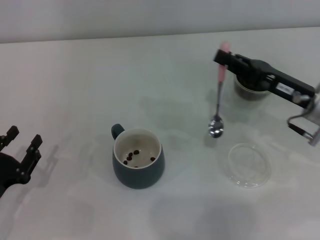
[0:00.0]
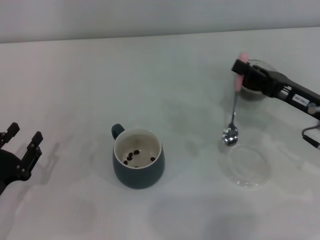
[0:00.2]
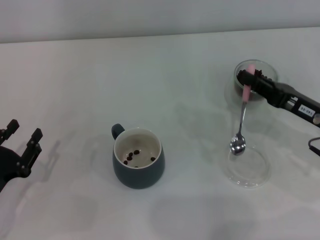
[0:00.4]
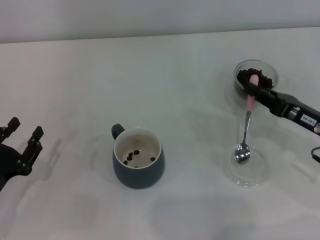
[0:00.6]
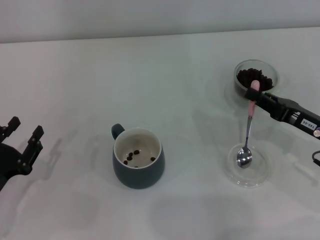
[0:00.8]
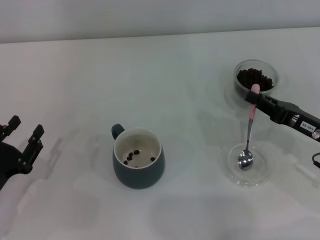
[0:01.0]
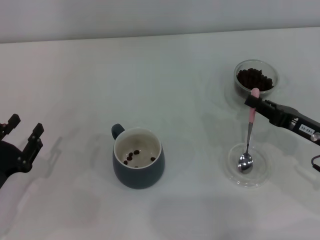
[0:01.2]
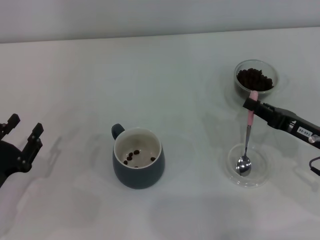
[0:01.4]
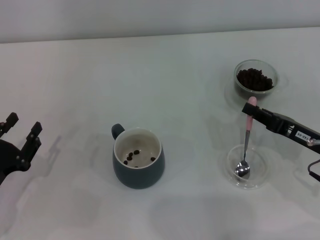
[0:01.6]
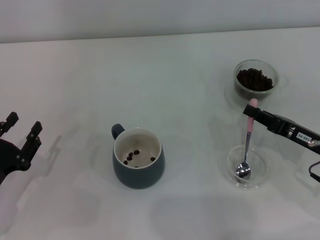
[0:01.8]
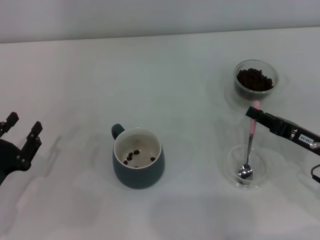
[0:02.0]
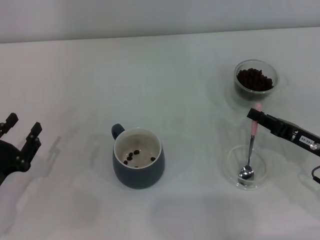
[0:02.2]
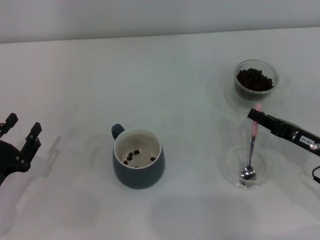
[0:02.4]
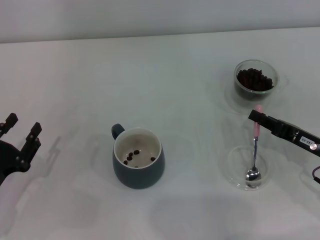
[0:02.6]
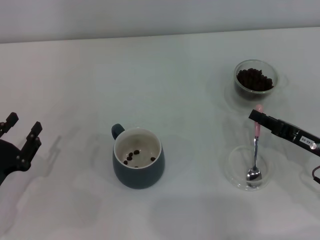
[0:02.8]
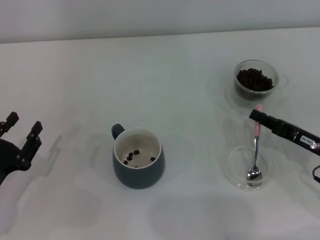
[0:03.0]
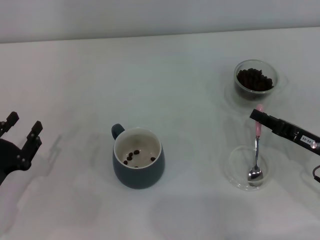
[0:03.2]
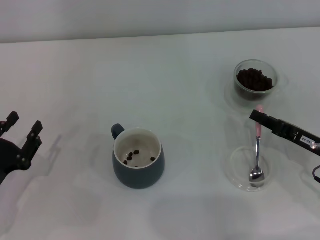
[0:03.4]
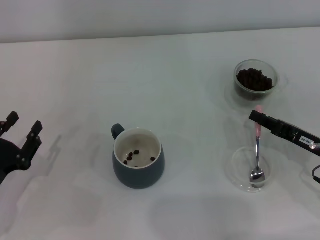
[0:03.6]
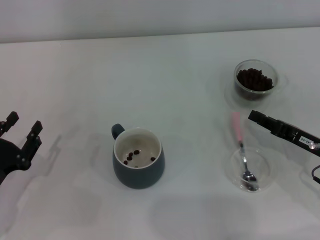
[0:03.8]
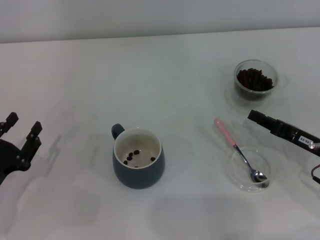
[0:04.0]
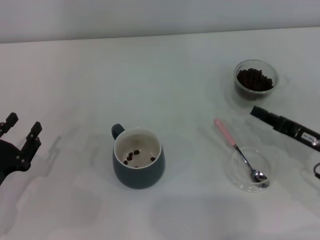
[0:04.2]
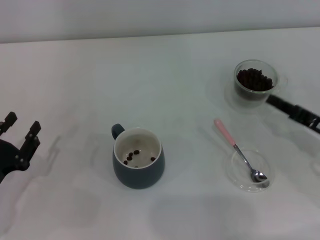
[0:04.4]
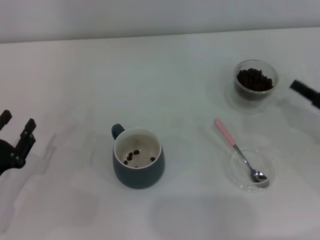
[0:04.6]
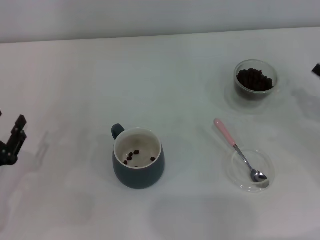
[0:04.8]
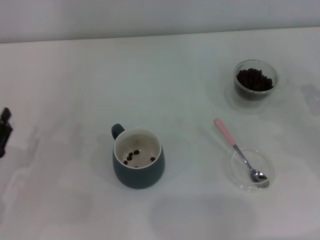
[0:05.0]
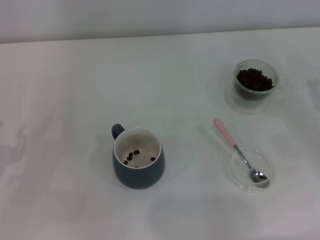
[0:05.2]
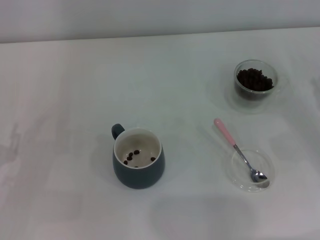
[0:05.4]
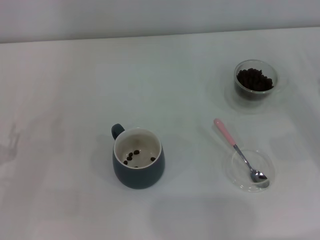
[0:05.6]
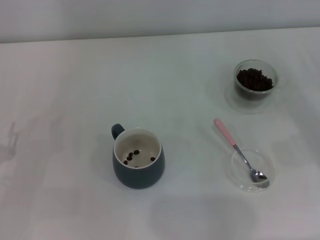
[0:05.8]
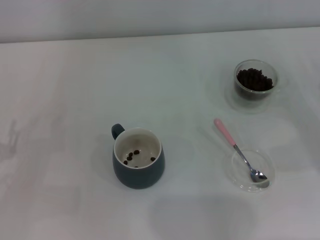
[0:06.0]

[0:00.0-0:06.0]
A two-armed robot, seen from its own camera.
Task of the whole recording: Use a pink spoon to take out the coffee beans from the glass and pour them into the gray cup.
Step, 0:00.0 to 0:04.0: Place the spoon back in its original place with the right gripper.
0:00.0 to 0:01.6: The right gripper travels downward and backward by roughly 10 cm.
0:01.6 to 0:04.4: The grippers move only a little.
0:04.4 to 0:06.0: The right gripper is displaced to the right by some 5 cm.

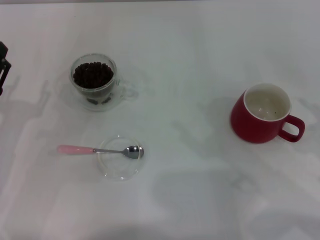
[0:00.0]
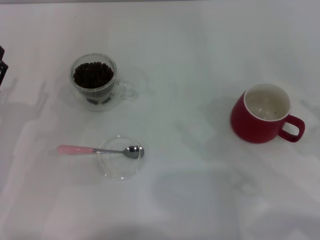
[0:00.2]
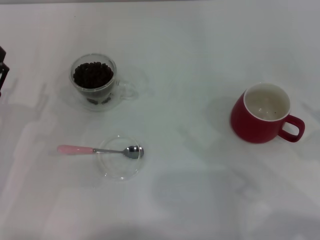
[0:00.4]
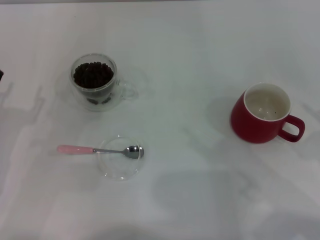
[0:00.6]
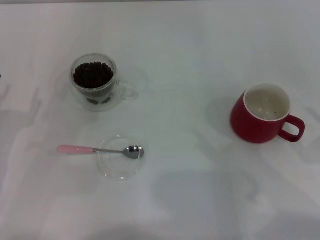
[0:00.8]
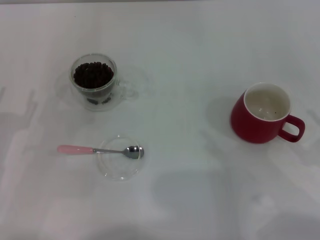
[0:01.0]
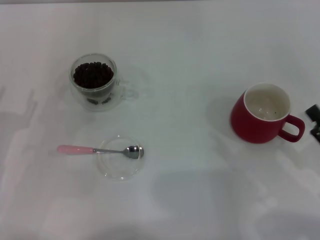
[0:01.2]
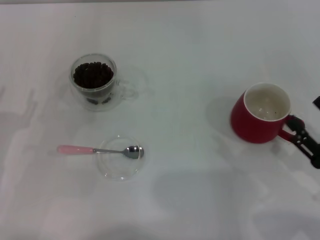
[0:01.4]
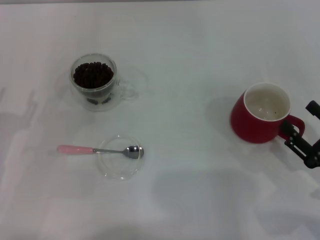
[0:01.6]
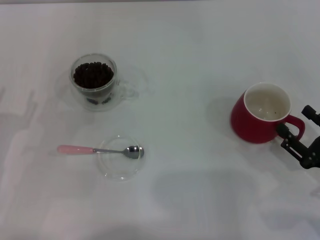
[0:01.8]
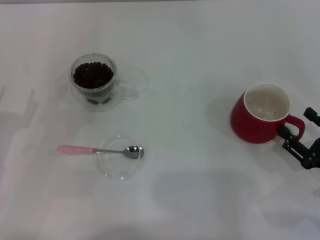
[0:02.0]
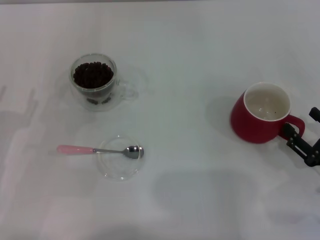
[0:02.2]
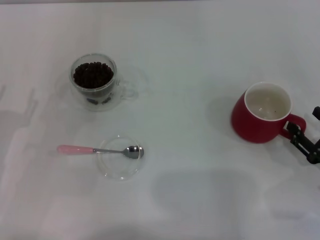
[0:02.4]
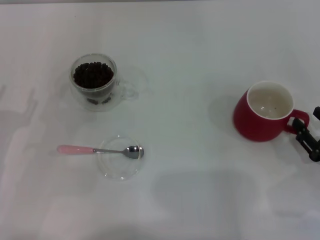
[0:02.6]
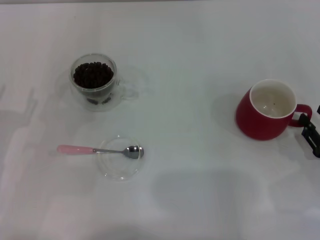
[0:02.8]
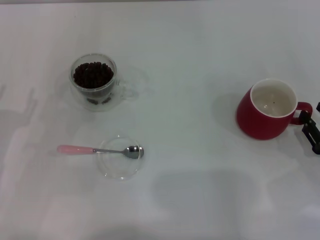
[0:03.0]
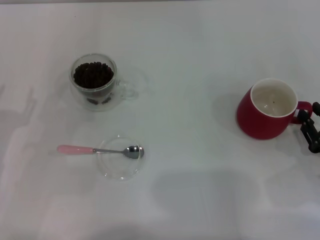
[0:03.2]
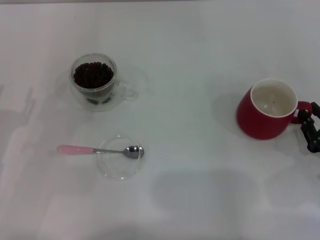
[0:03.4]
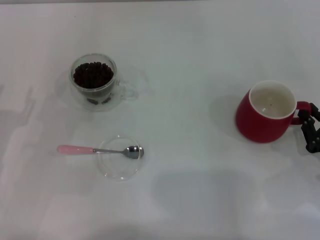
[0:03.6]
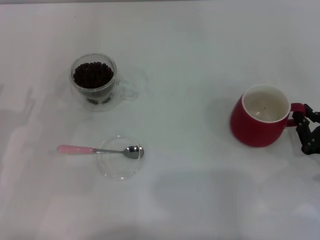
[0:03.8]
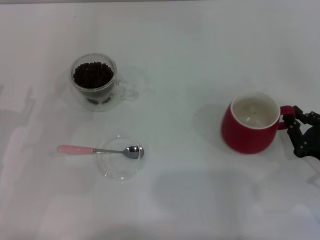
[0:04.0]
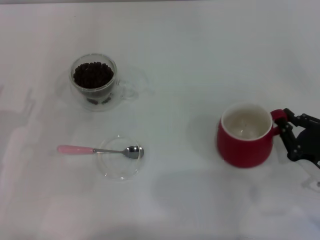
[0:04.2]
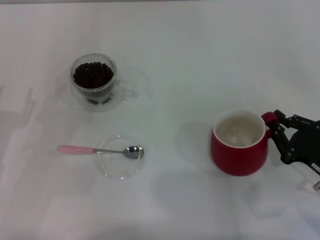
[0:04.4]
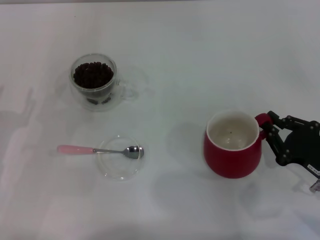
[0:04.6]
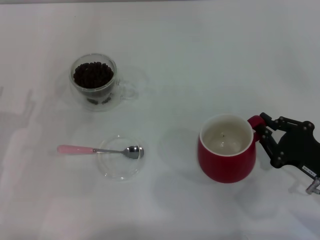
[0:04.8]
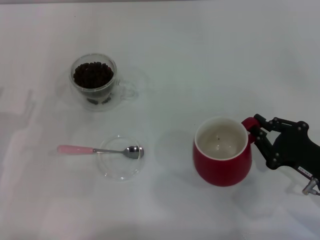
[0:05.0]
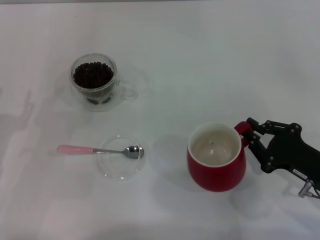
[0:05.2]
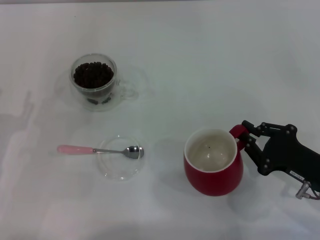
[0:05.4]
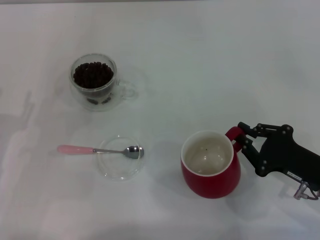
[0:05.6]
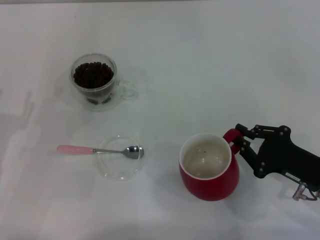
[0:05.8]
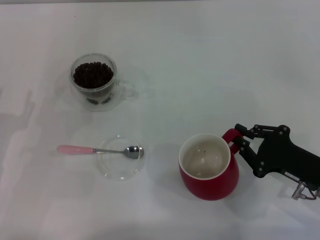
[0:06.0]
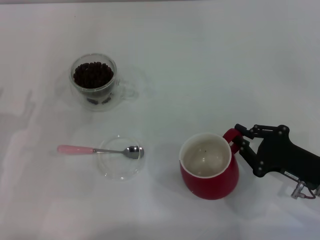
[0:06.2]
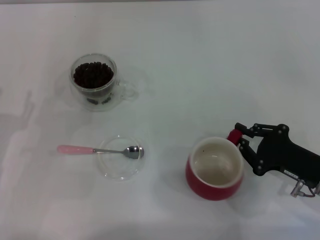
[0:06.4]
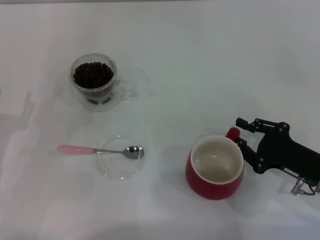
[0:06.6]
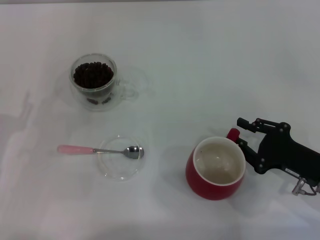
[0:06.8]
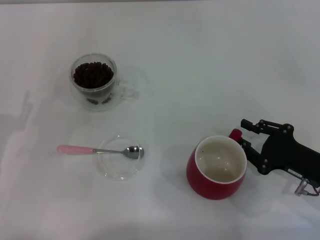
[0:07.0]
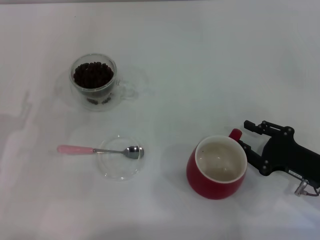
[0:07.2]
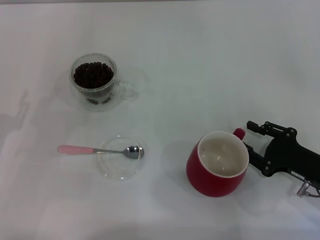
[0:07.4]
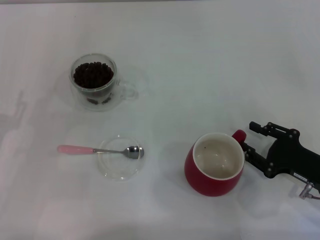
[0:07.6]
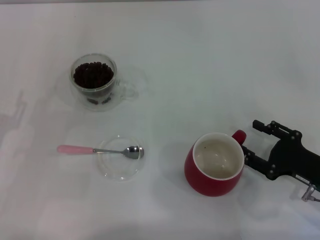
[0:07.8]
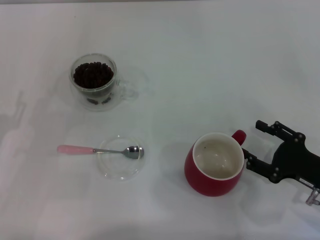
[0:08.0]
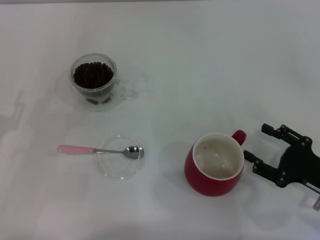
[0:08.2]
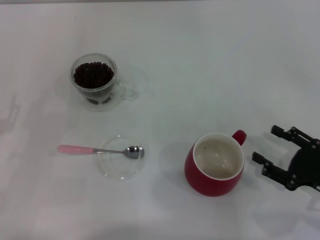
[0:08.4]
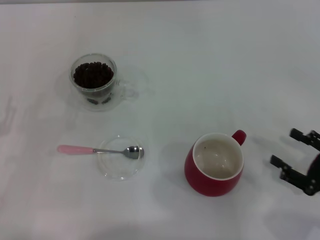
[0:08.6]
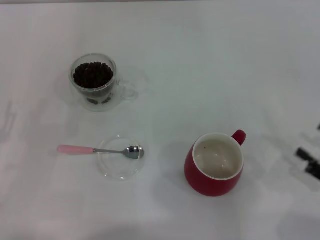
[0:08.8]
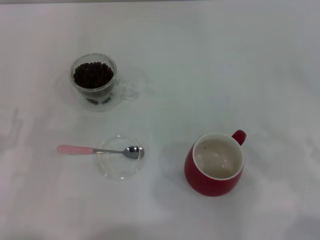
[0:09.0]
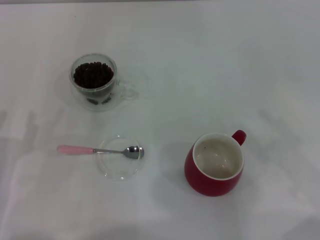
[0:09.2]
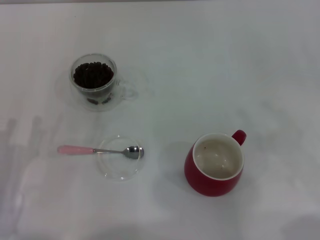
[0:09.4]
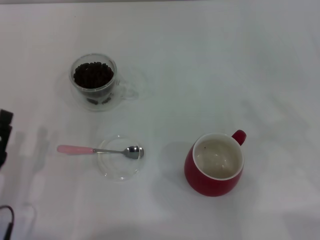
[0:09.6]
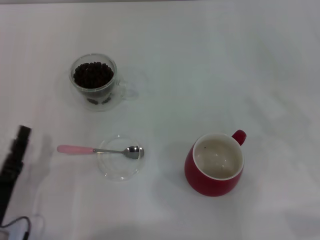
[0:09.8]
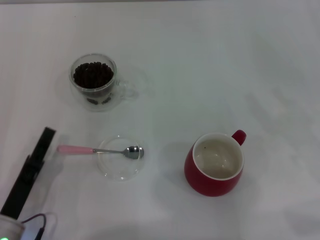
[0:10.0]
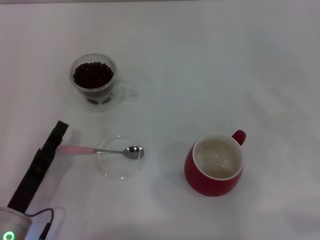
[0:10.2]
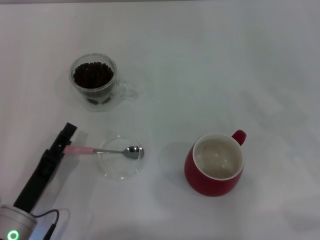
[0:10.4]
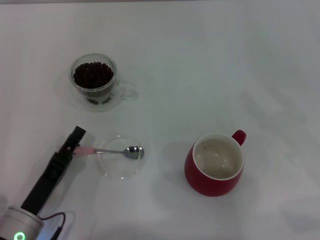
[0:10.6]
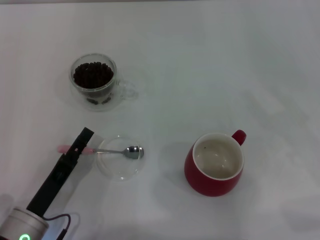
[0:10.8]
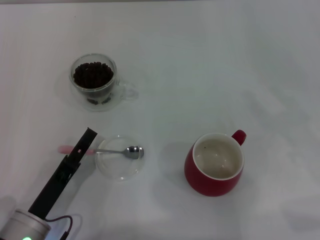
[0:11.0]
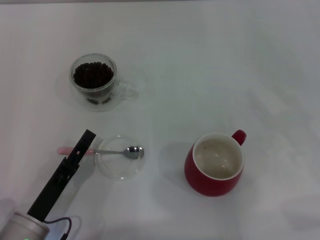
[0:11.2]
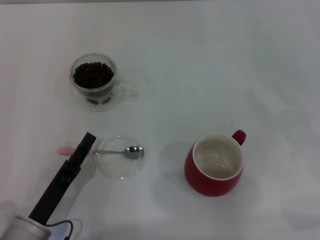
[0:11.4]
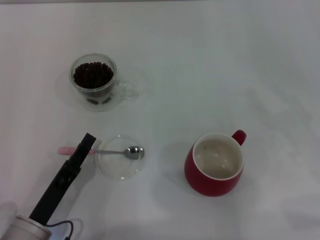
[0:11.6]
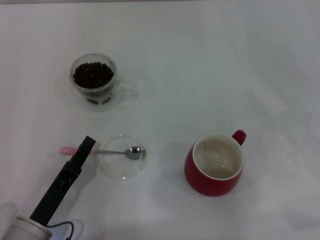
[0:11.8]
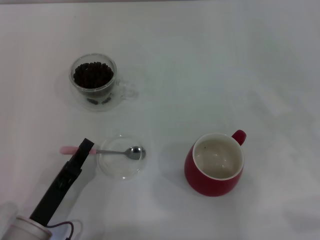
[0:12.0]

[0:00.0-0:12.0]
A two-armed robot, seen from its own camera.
Task of the whole recording: Use a pink spoon to take out the coffee beans from the glass and pour them into the red cup.
Step, 0:00.0 to 0:08.4: Move the cup to the center of view with the left gripper.
0:00.0 to 0:01.6: The right gripper moves downward, some 5 cm.
0:01.6 to 0:03.0: The right gripper closes up.
0:03.0 to 0:04.4: The right gripper closes.
0:04.4 to 0:06.0: The grippers move only a little.
0:06.0 to 0:07.6: The right gripper opens up.
0:07.6 to 0:09.0: The right gripper heads to the right, backward and upward, covering some 10 cm, and opens its fingers.
0:09.0 to 0:10.4: The left gripper heads to the right, covering roughly 10 cm.
0:10.4 to 0:12.0: The left gripper closes.

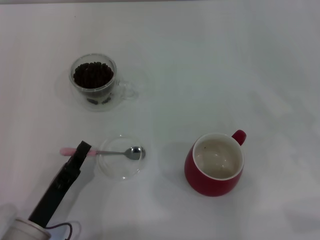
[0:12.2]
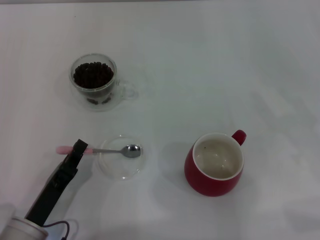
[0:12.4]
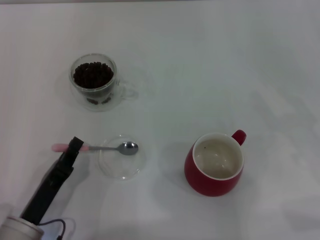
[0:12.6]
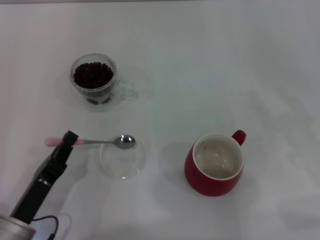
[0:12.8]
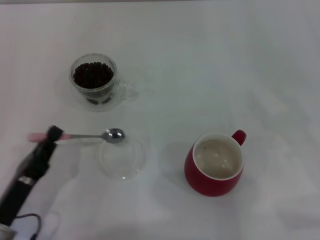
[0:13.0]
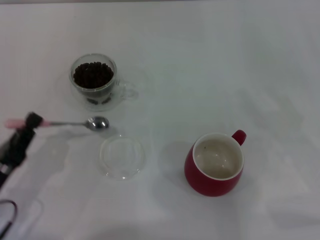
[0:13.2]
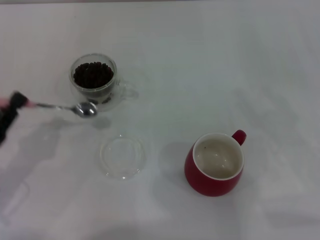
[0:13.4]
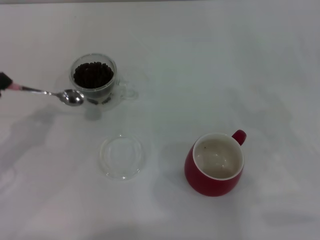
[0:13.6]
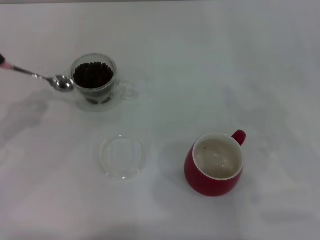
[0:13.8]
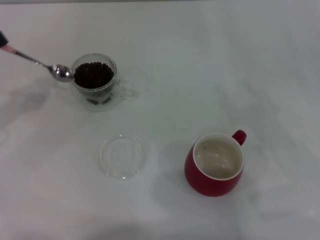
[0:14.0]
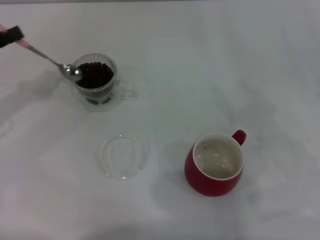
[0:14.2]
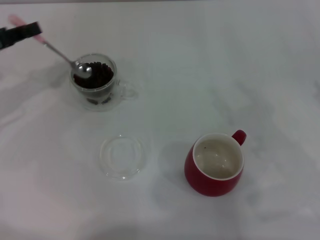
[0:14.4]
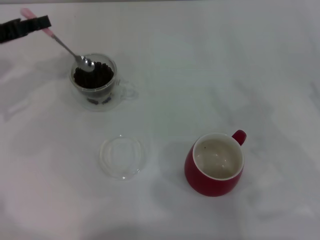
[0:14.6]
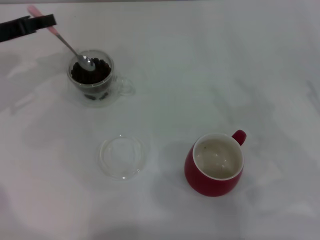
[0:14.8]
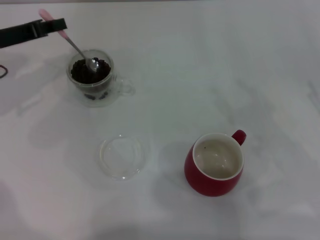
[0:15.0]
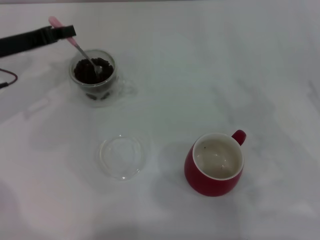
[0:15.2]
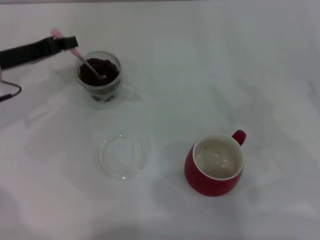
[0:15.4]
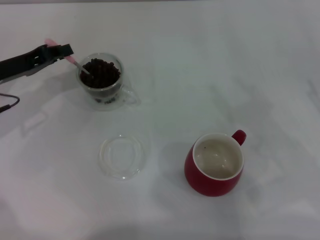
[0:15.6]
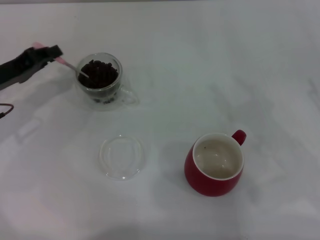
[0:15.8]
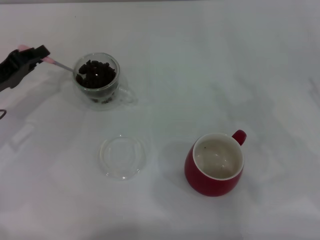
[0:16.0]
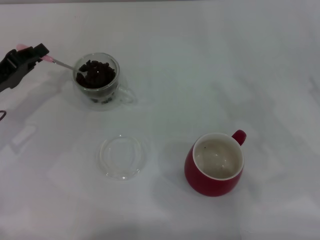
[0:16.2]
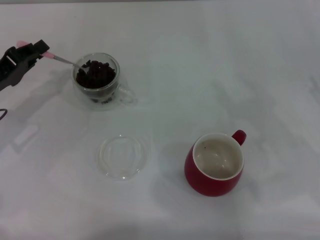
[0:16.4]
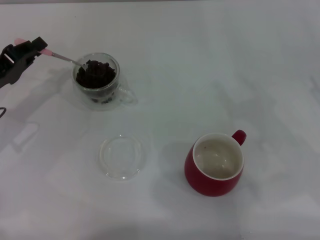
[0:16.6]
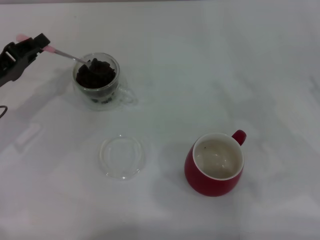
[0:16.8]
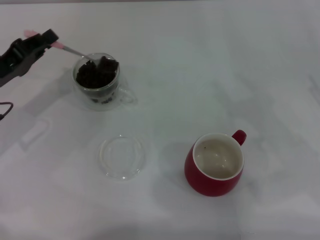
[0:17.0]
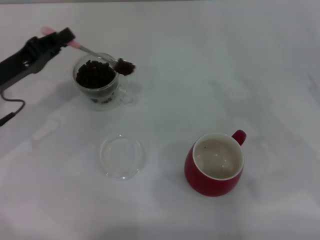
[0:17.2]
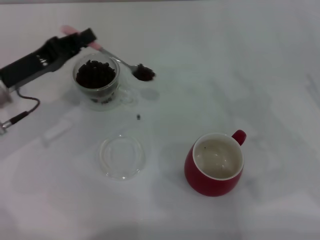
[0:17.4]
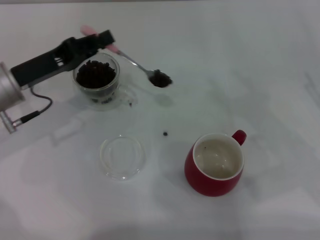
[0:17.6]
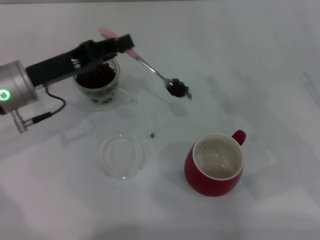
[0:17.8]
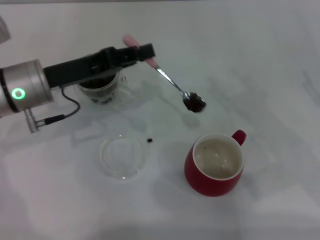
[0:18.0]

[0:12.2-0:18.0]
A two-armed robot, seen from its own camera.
Task of the whole recording: Use a pink spoon to take out the coffee beans from the glass and pour them into the red cup.
0:12.2 to 0:13.6: The left gripper goes roughly 15 cm to the left, forward and upward.
0:13.6 to 0:15.0: The left gripper shifts roughly 15 cm forward.
0:15.0 to 0:16.6: The left gripper heads backward, covering approximately 10 cm.
0:16.6 to 0:18.0: The left gripper heads to the right, covering some 10 cm.
